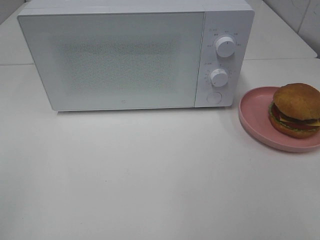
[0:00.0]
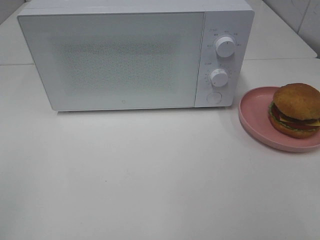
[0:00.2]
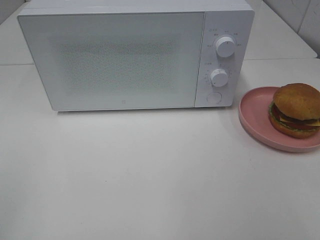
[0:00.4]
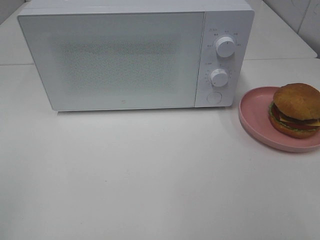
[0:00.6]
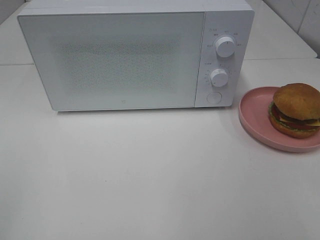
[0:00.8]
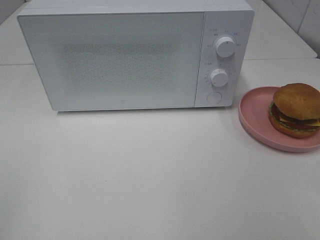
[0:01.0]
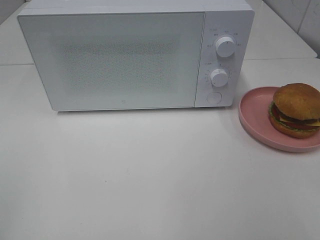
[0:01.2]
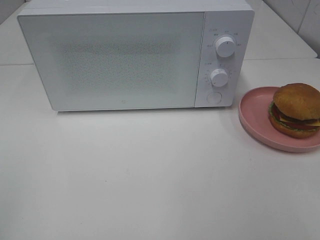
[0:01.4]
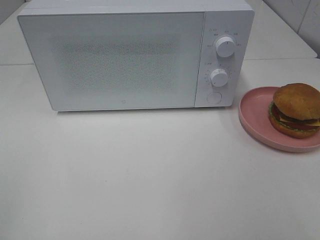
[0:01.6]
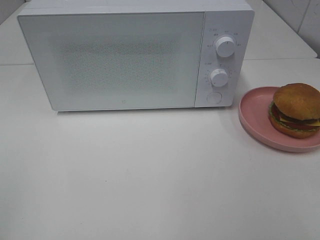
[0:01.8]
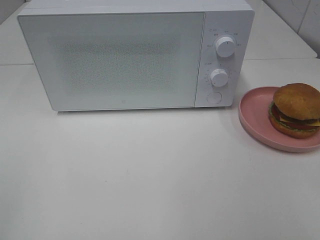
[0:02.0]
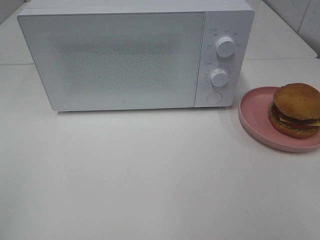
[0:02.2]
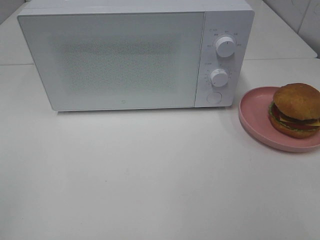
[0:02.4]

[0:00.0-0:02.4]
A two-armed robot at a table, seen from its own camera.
Task of the whole recording: Heat the burger.
0:01.2 to 0:02.4: Both grippers stay about where they are.
